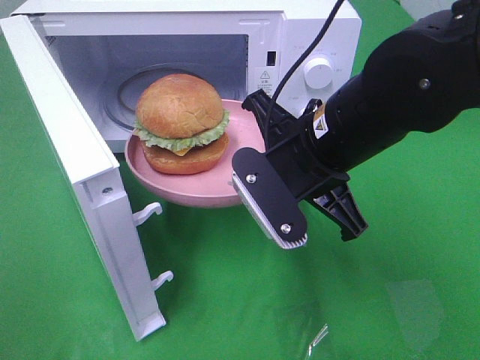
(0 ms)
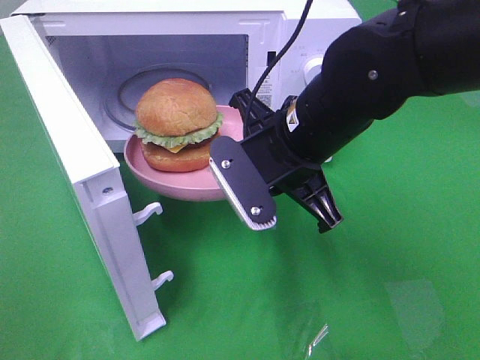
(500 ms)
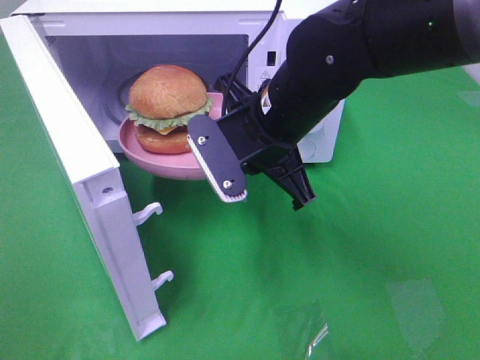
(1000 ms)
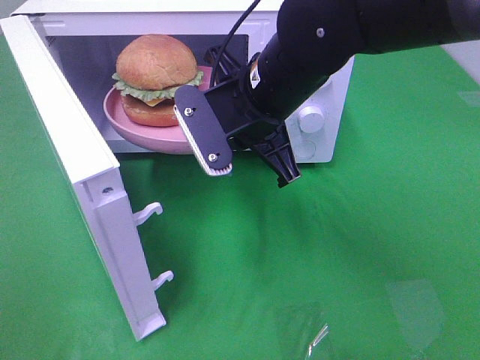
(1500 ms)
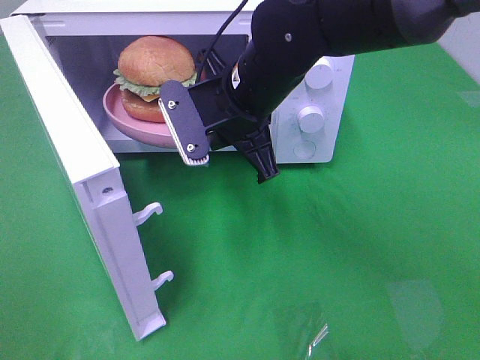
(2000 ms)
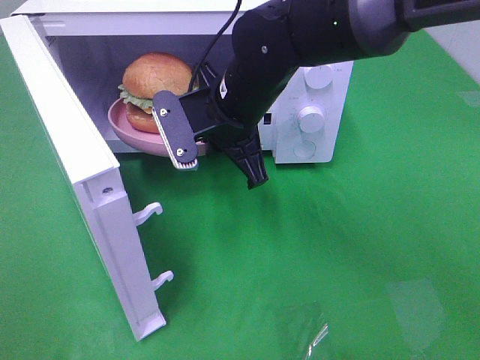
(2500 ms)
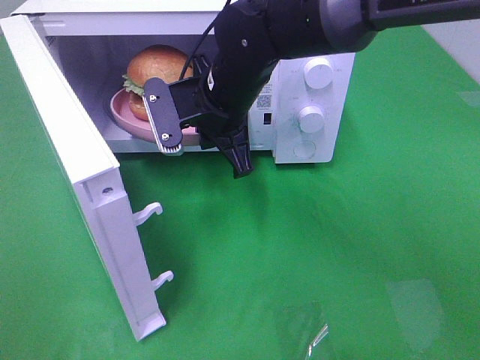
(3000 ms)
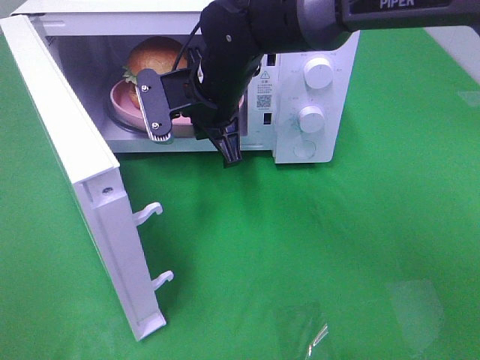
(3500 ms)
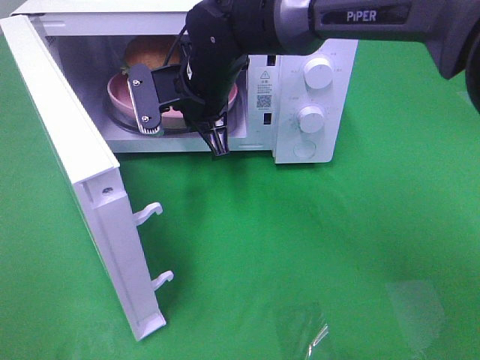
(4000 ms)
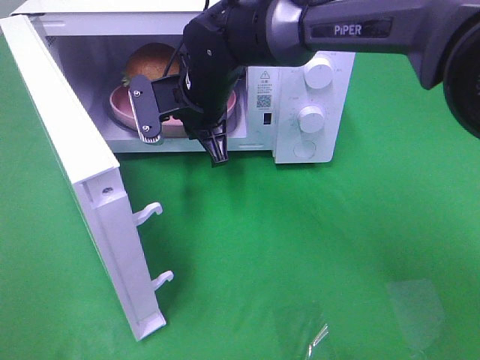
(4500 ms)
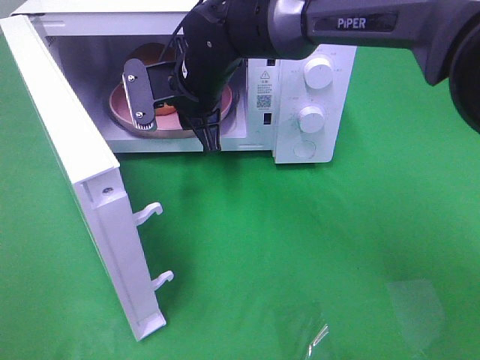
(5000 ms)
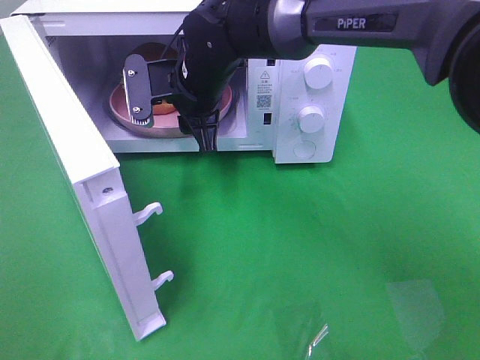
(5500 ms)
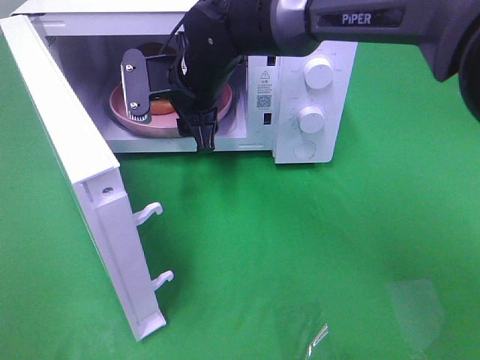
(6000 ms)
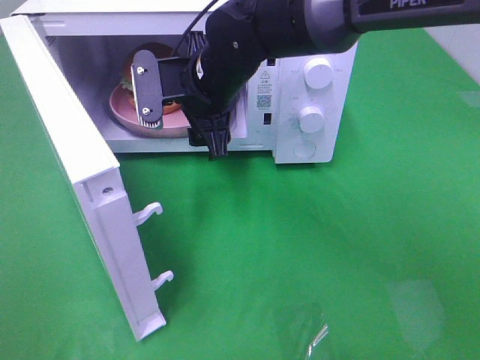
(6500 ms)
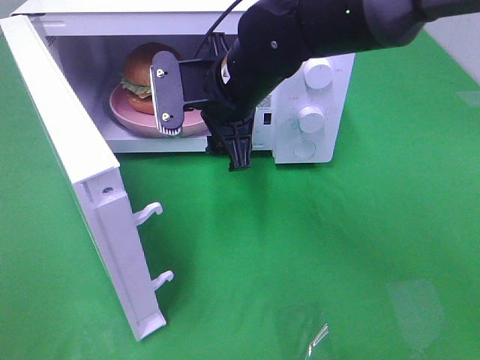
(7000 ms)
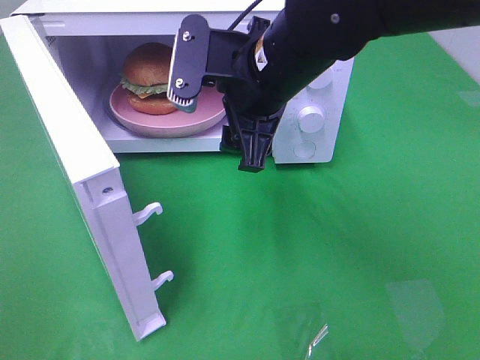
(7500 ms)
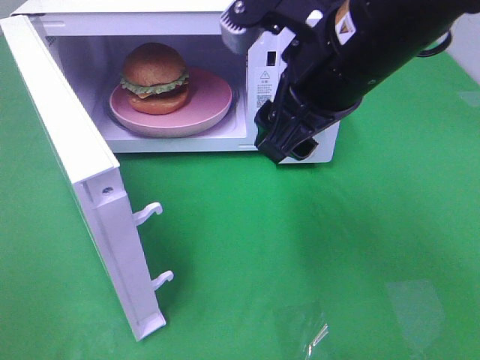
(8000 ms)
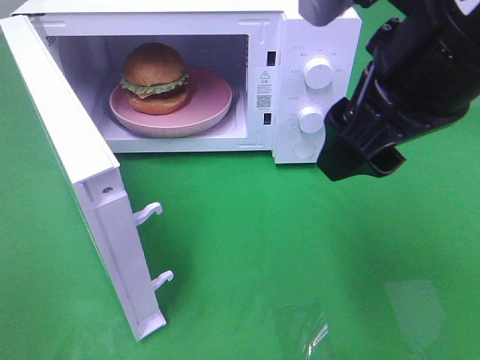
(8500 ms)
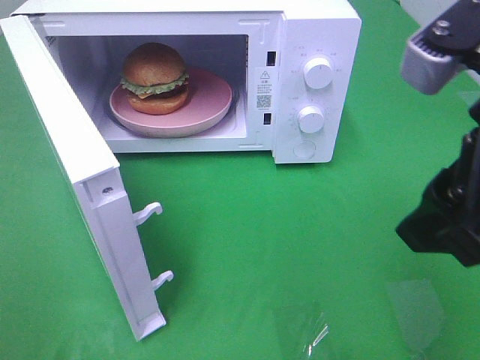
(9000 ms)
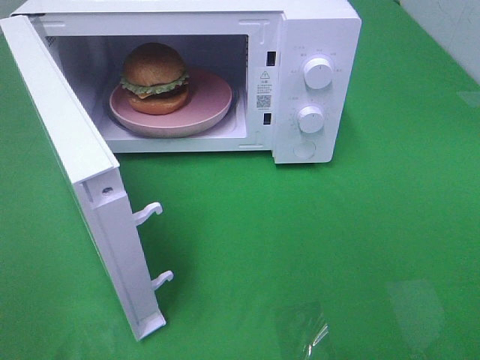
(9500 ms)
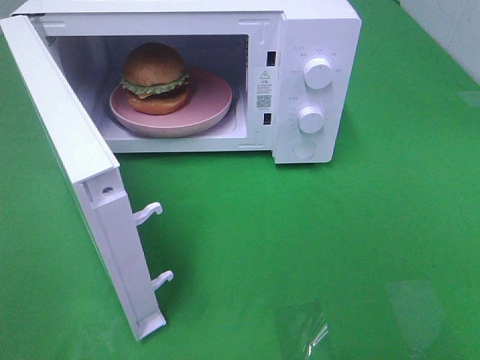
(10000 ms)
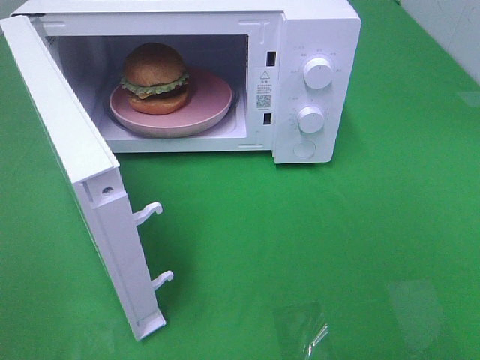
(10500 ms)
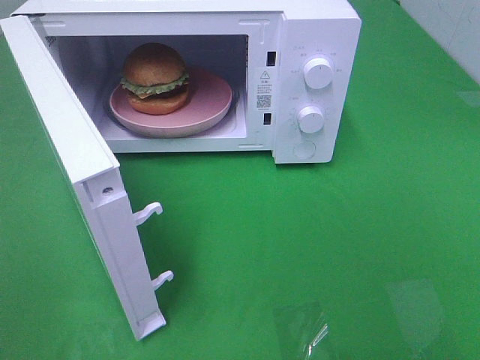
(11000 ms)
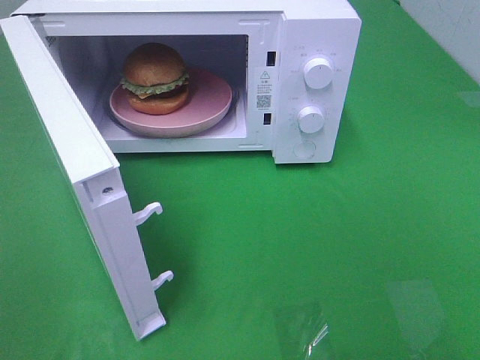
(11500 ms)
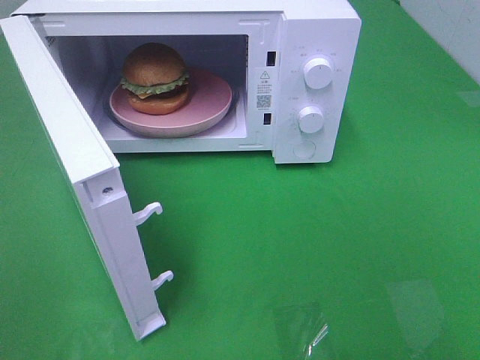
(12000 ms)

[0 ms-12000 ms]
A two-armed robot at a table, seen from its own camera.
Task of the whole recording: Heat the burger.
Step, 0 ms to 4500 ms: Right hand: place the plate in the microwave.
0 ms to 2000 ms: The right gripper heads forward and to the left, covering approximately 10 cm.
2000 ms to 4000 ms: The right gripper heads forward, covering some 5 cm.
4000 ms to 6000 ms: The right gripper opens up.
6000 ms to 8000 ms: The right gripper goes approximately 20 cm backward, to the right and upward.
8000 ms to 10000 ms: The right gripper is displaced backward and to the right by some 30 cm.

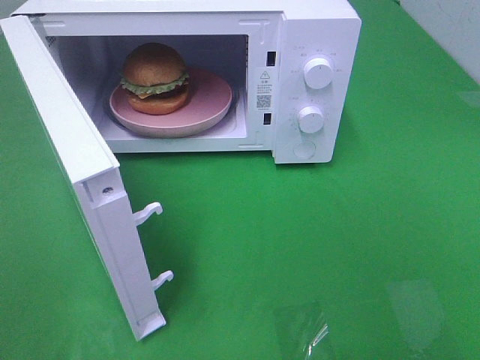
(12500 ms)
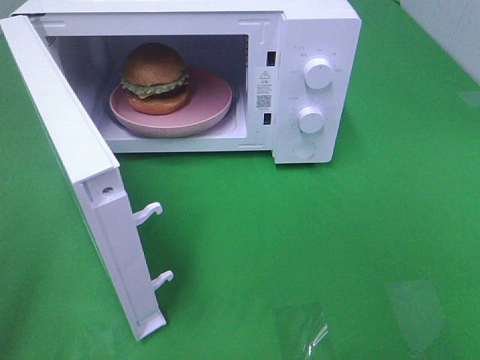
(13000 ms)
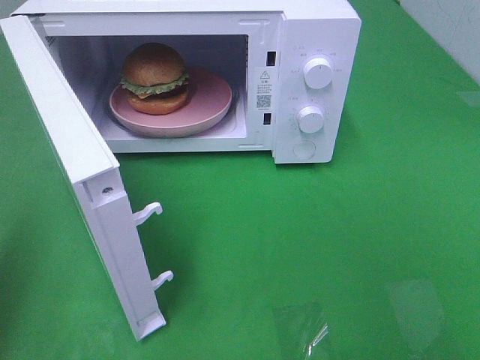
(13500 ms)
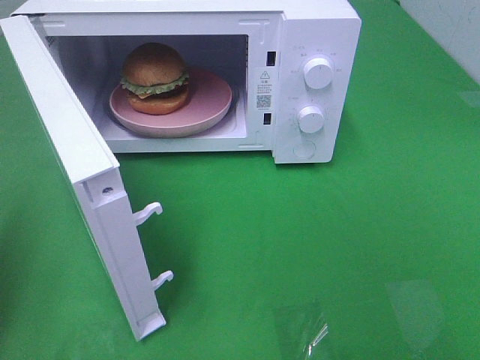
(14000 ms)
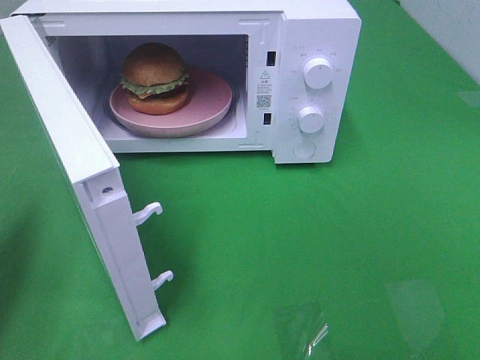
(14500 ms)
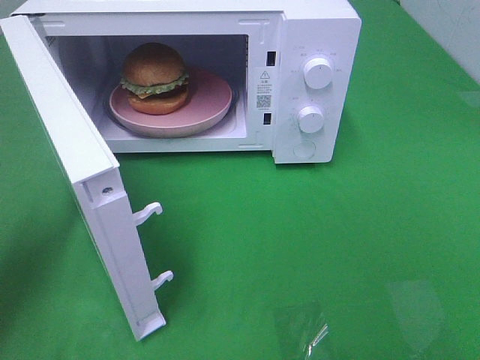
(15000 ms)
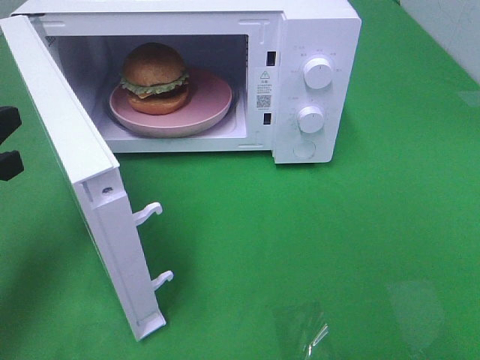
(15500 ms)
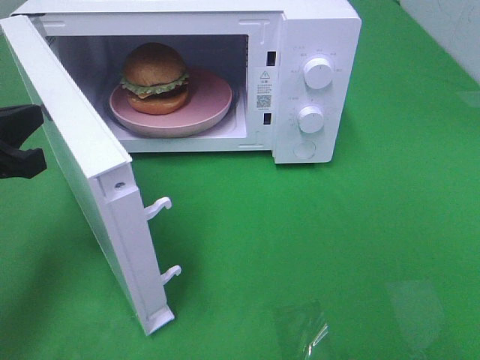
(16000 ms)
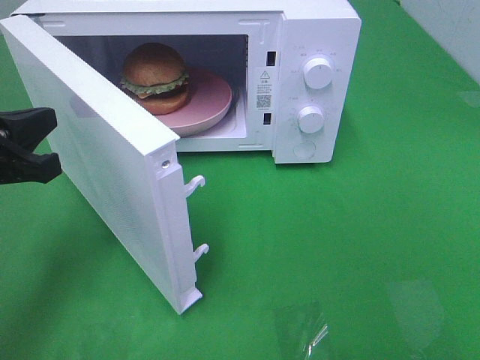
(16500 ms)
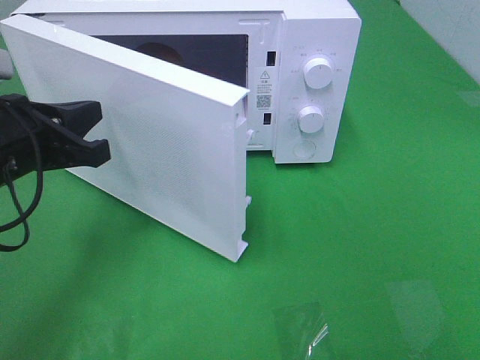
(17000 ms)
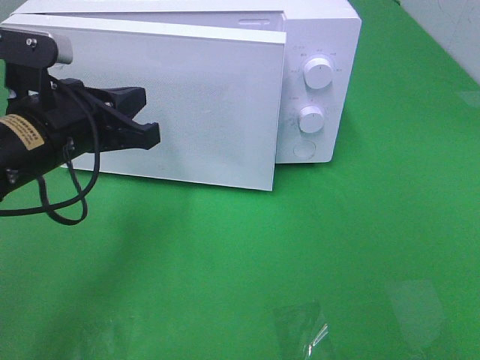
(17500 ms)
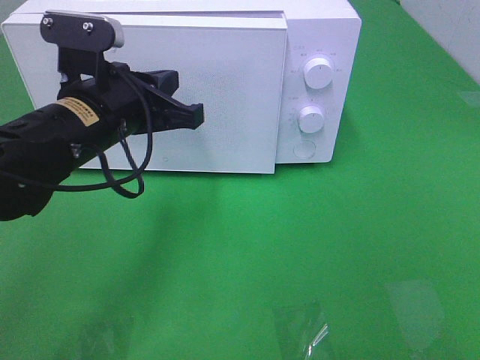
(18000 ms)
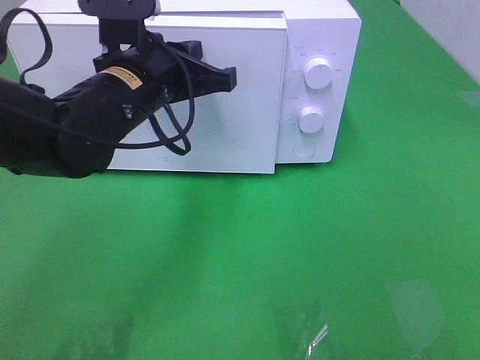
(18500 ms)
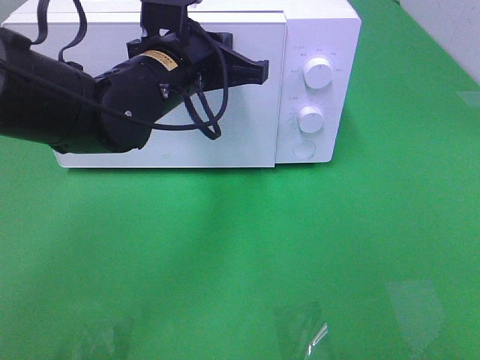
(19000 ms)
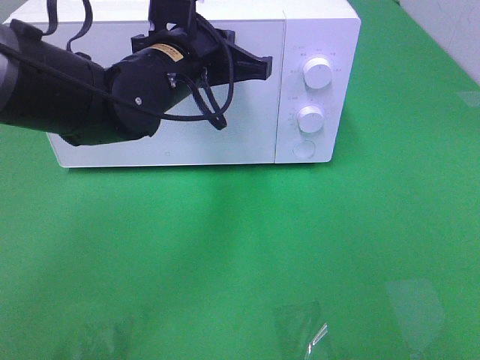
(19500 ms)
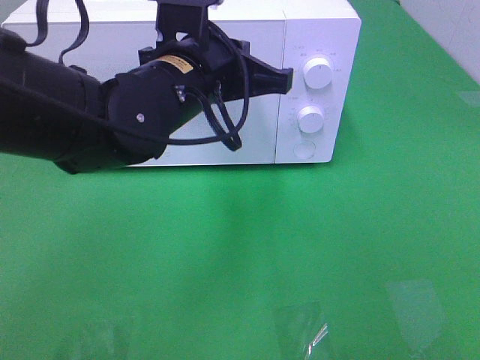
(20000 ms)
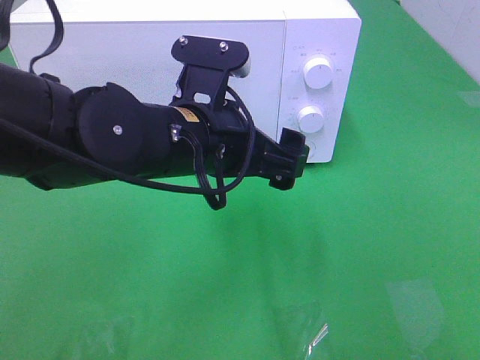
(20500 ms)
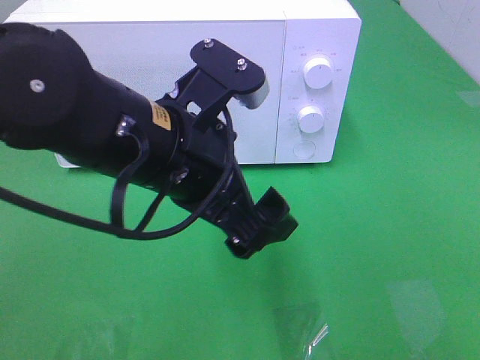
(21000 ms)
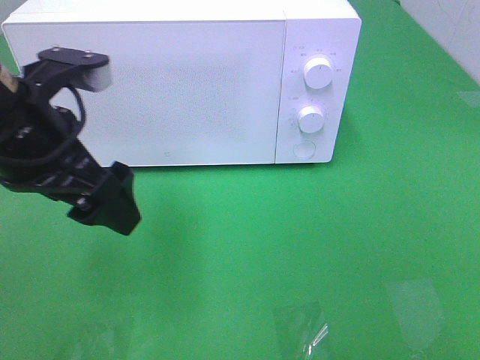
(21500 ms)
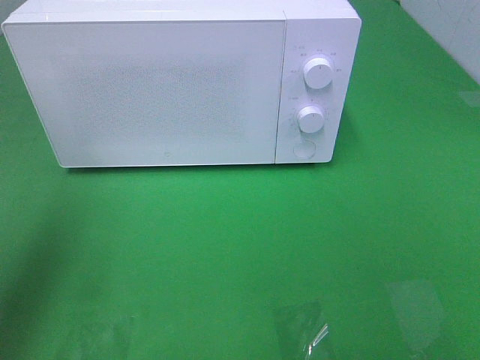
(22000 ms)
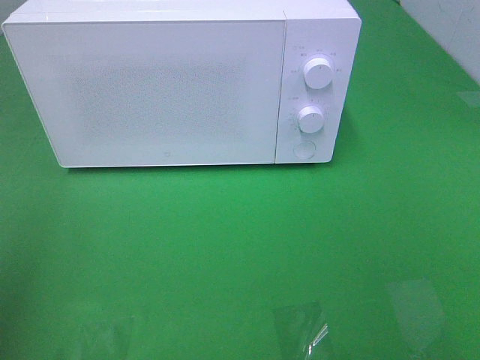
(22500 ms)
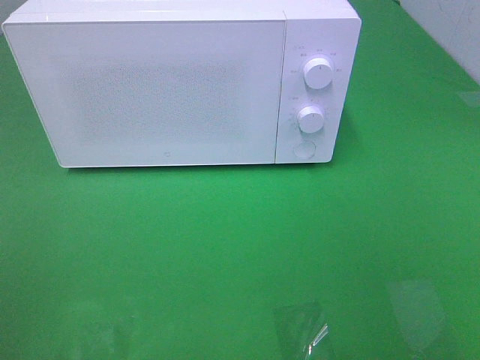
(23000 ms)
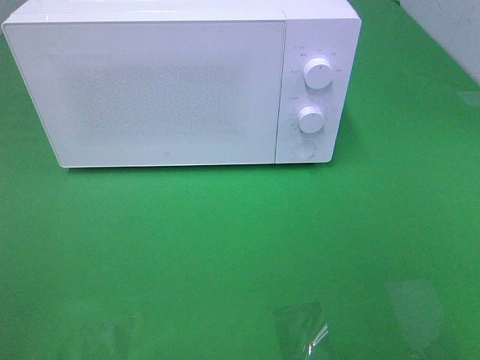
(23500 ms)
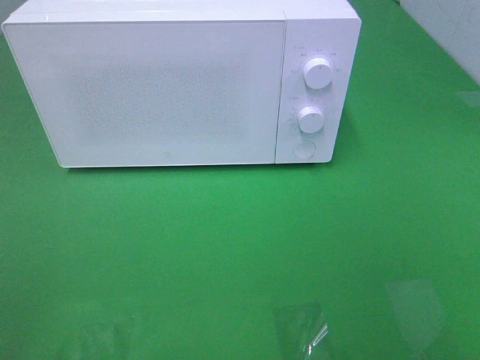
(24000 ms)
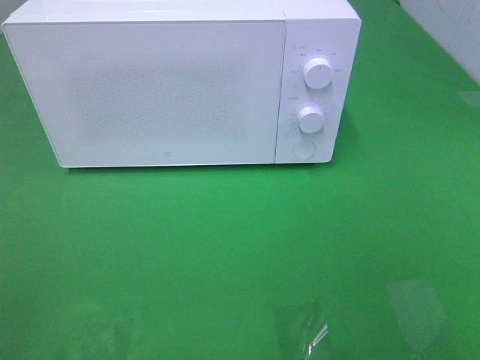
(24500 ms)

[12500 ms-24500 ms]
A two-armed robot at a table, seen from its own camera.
Task of the whole recording: Heat the burger.
Step, 12500 ms to 19500 ms: Left hand: close the microwave door.
12500 ms to 14500 ms: The left gripper shifts roughly 20 cm forward, and closes up.
14500 ms to 16500 ms: The left gripper shifts roughly 10 cm to the right.
16500 ms to 18500 ms: The left gripper is displaced to the right and forward by some 20 cm.
18500 ms to 20500 ms: The left gripper travels backward and to the right by some 10 cm, and opens its fingers.
20500 ms to 22500 ms: The left gripper travels to the left and backward by approximately 30 cm.

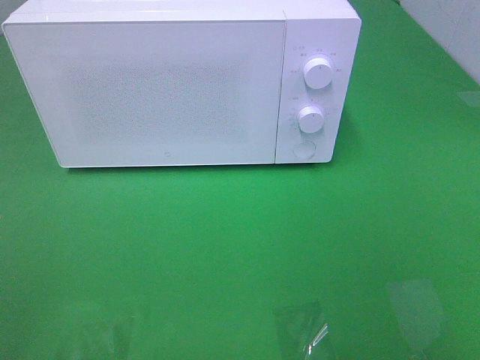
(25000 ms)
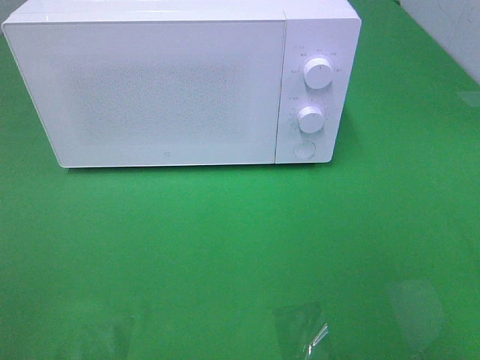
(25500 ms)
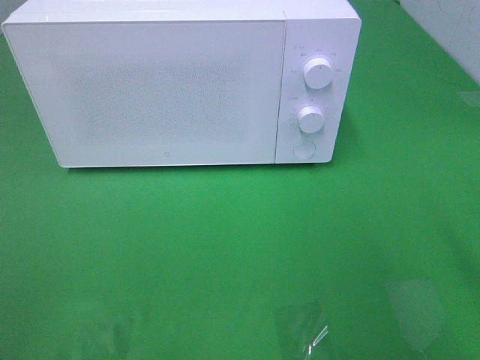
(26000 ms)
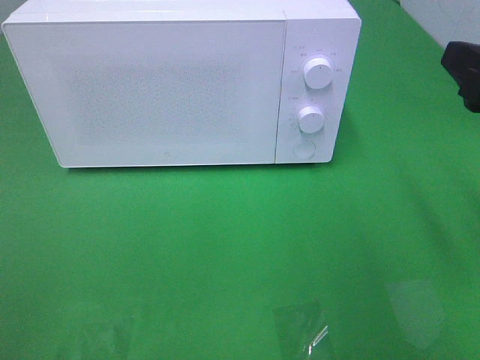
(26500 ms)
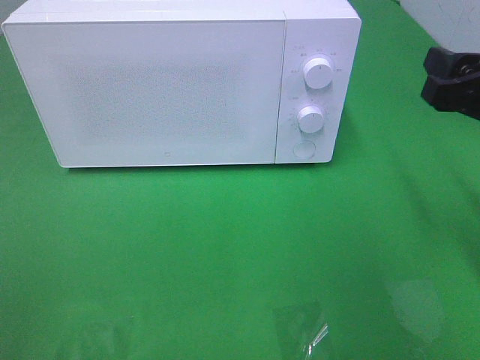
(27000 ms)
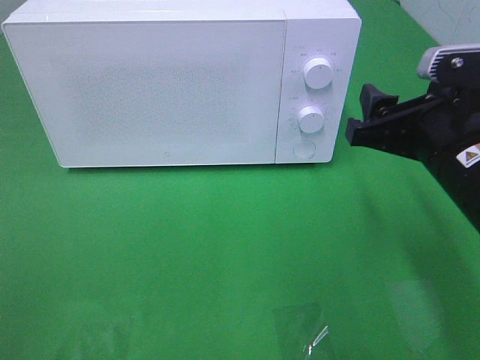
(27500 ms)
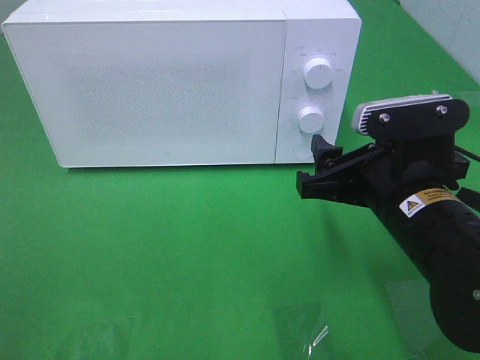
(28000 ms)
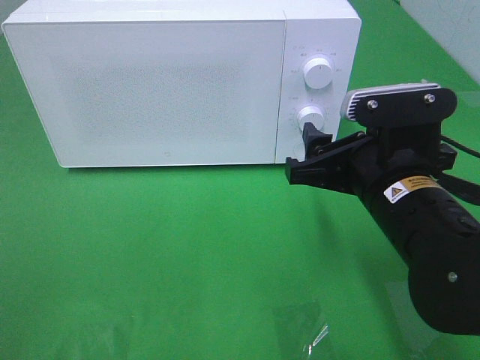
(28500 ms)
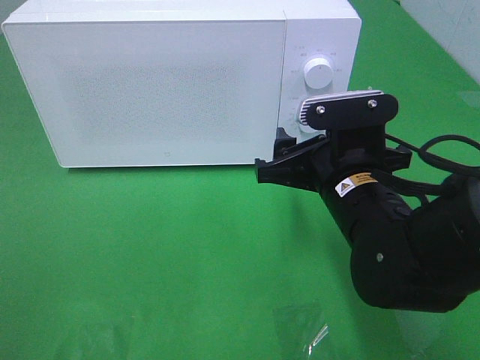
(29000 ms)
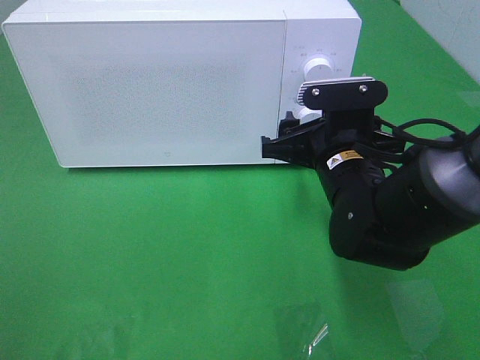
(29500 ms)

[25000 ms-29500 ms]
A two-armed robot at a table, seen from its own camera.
Task of the whole recording: Heat the burger.
25000 ms to 27000 ms: The right gripper is displaced forward by approximately 20 cm.
27000 ms to 29500 ms: The right gripper travels to the left, downward and forward by some 20 cm.
